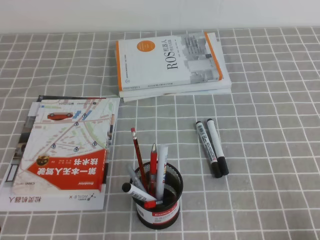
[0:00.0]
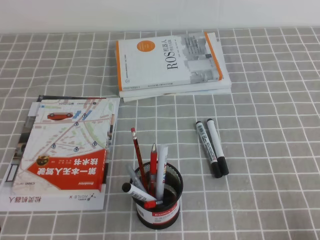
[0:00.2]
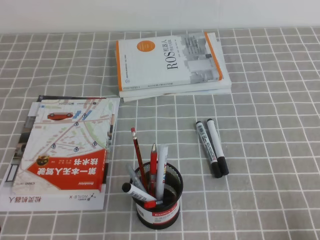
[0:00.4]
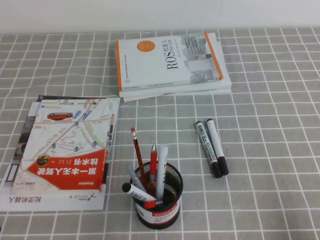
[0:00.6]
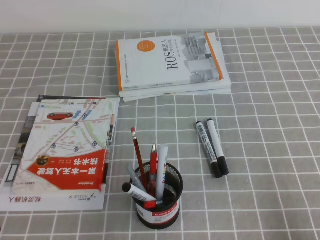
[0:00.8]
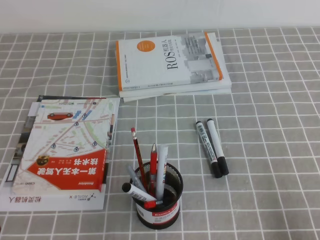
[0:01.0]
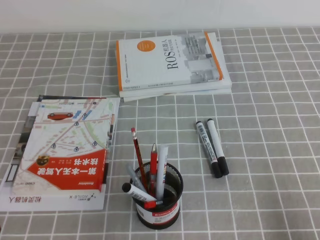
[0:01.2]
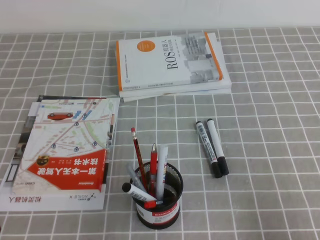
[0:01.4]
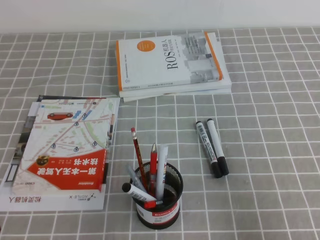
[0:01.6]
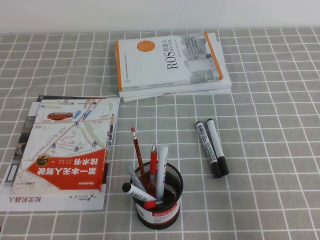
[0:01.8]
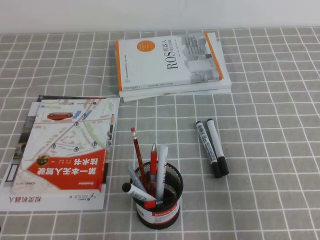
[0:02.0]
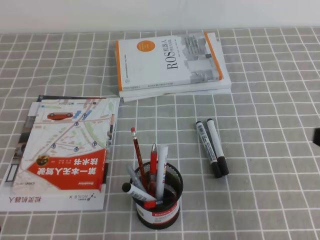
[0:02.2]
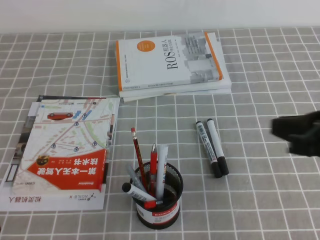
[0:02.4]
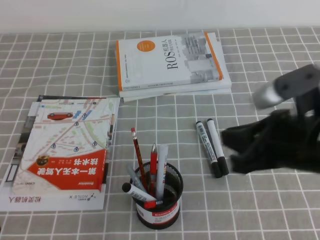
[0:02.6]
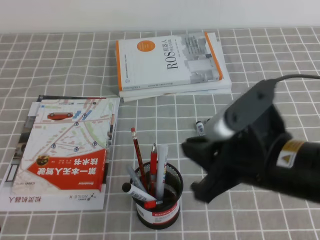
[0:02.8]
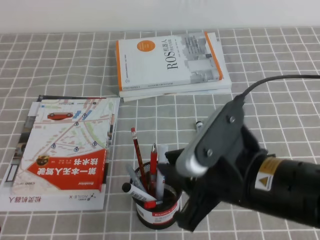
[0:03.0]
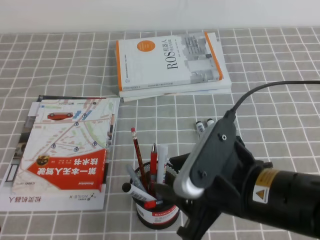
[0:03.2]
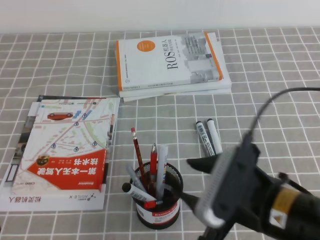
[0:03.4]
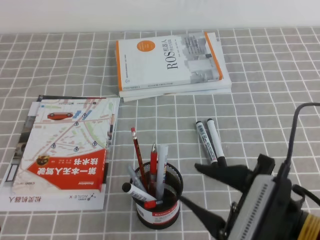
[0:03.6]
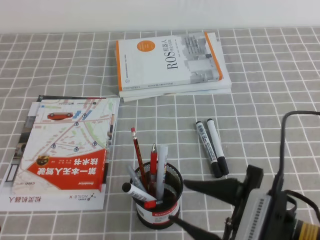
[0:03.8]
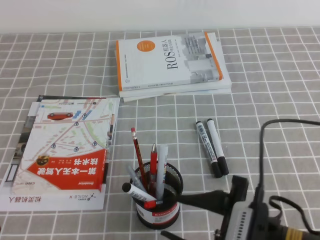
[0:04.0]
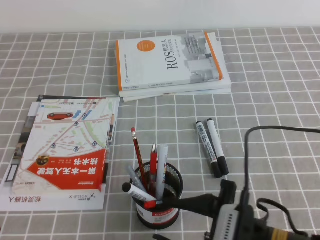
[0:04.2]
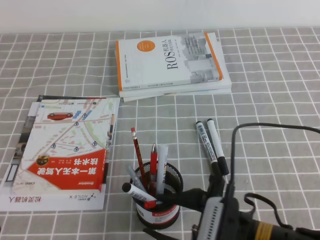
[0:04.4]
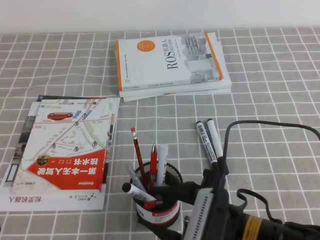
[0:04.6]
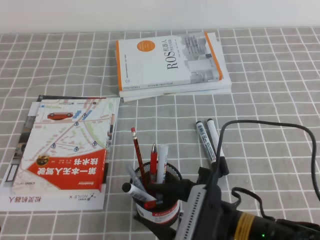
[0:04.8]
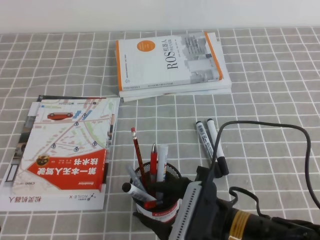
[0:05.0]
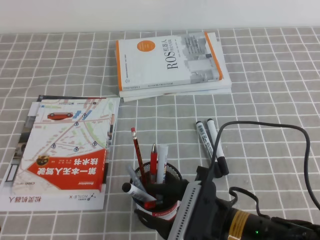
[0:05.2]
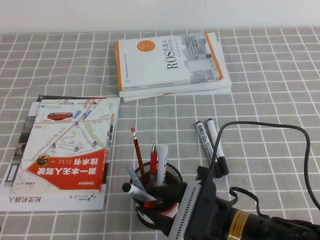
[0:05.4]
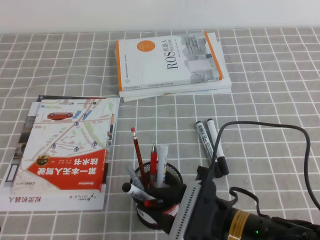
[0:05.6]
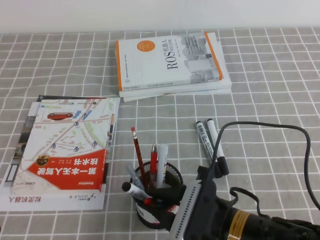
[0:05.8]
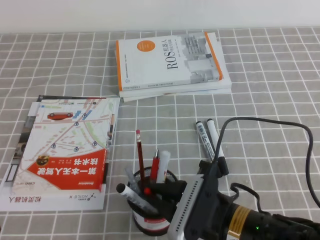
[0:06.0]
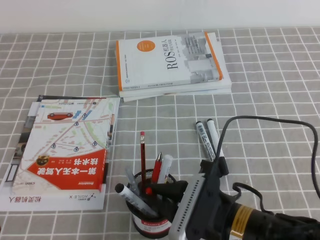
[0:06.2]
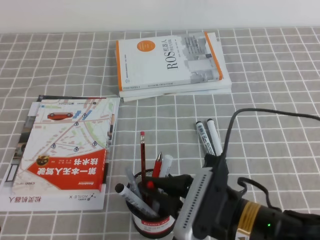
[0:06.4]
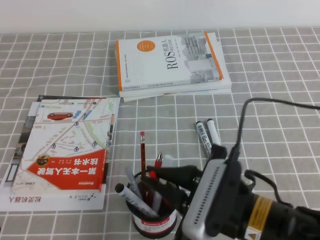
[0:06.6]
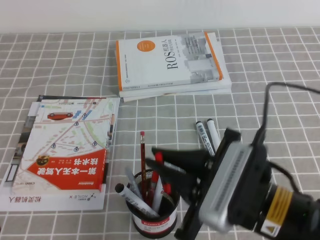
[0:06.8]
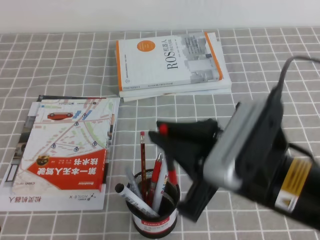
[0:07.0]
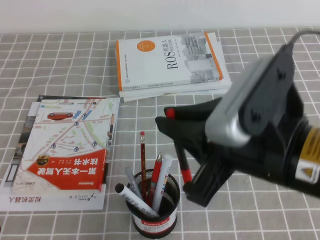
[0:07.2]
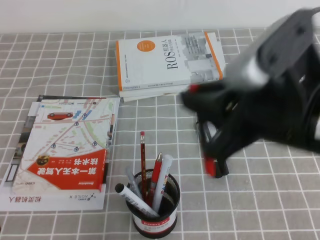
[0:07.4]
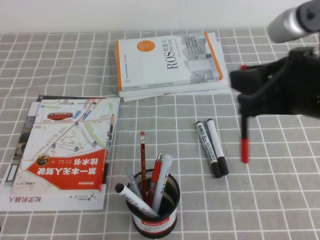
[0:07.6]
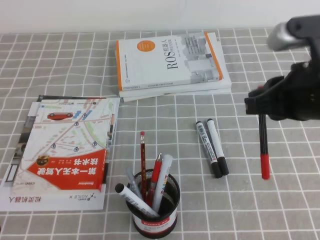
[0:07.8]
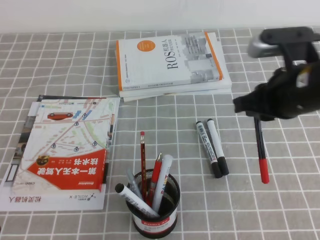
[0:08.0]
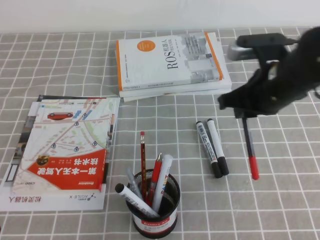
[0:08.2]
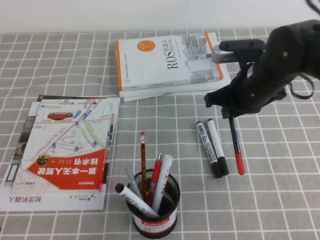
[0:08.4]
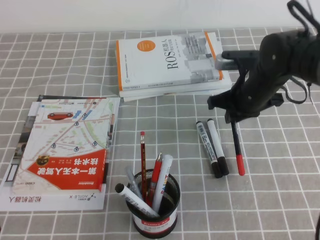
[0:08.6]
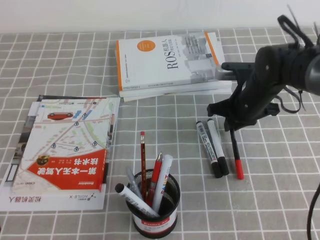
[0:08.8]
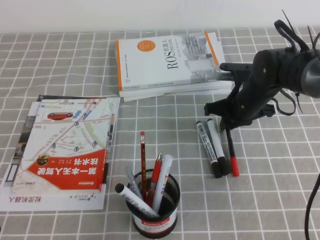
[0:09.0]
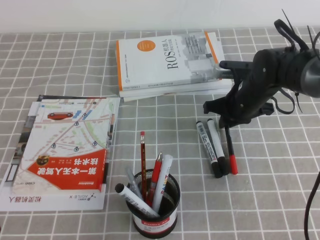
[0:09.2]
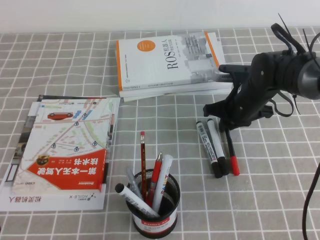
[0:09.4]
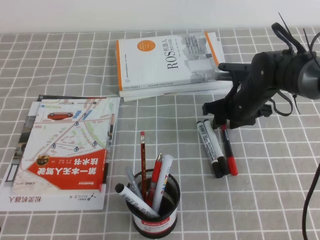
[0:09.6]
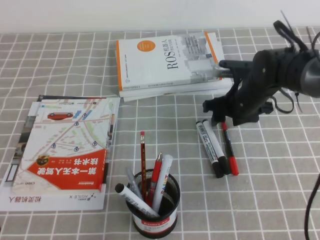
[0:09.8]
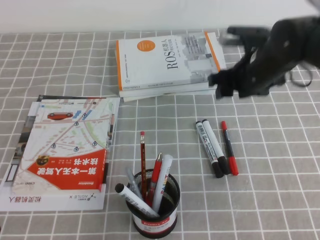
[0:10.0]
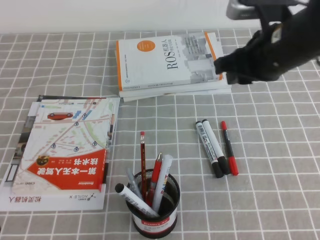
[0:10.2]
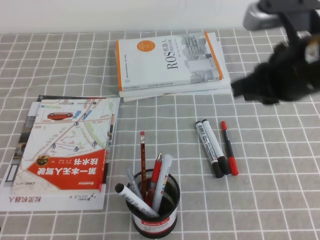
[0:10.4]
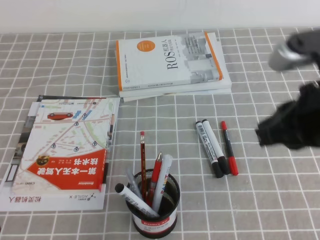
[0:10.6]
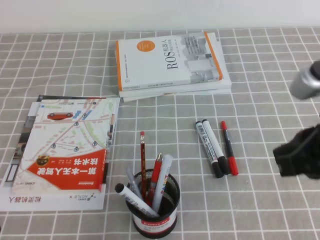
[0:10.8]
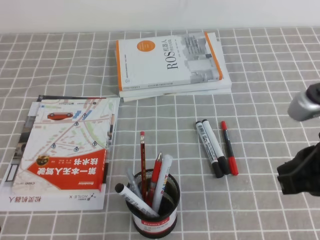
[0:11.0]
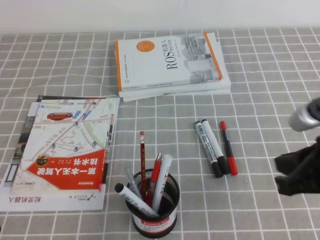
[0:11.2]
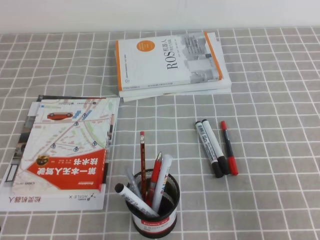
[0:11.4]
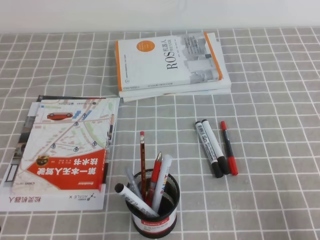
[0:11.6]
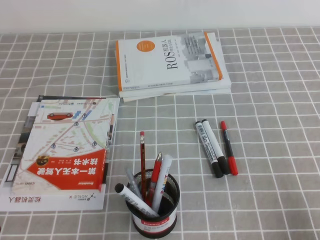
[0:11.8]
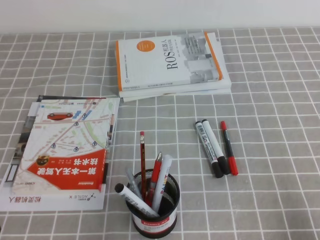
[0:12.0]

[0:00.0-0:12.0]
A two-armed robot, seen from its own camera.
0:00.0 to 0:01.6: The right gripper goes some 10 cm upward.
0:01.6 to 0:03.0: The right gripper goes some 20 cm to the left and forward.
0:03.0 to 0:04.4: The right gripper heads downward, covering about 10 cm, and opens its fingers.
0:04.4 to 0:06.0: The right gripper closes up.
0:06.0 to 0:07.6: The right gripper travels upward and to the right by approximately 20 cm.
0:07.6 to 0:09.0: The right gripper heads forward and downward, covering some 30 cm.
0:09.0 to 0:10.4: The right gripper goes some 20 cm upward and backward, and opens and closes again.
0:10.4 to 0:12.0: The right gripper moves backward, downward and to the right, roughly 30 cm.

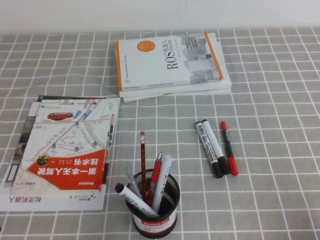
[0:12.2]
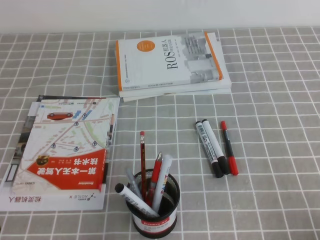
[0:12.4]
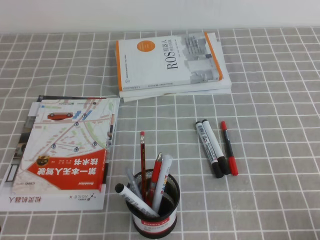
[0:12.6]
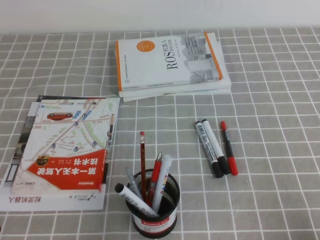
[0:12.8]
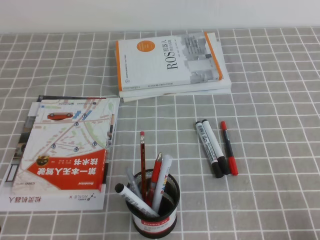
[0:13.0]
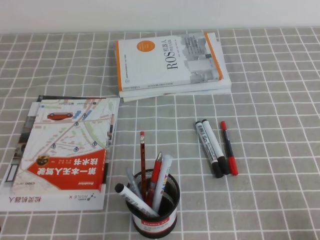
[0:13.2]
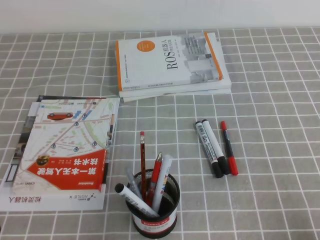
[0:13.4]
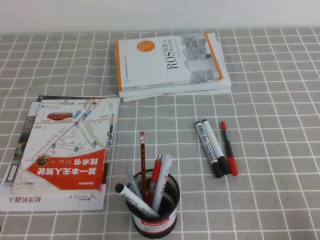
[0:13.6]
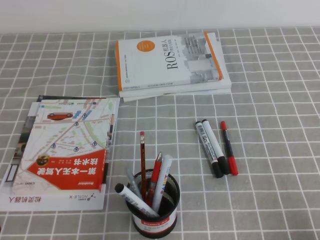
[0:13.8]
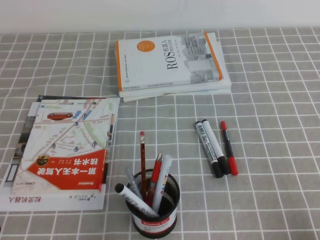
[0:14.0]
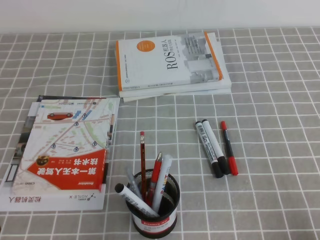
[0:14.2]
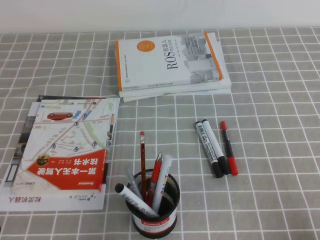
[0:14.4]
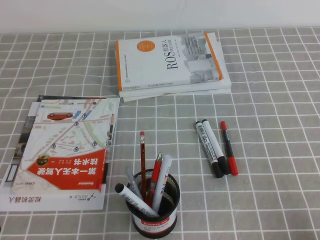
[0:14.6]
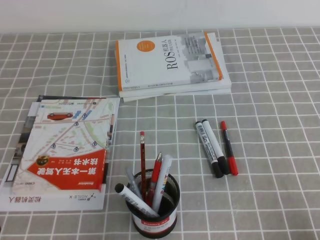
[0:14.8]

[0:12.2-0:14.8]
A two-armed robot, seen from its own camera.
0:13.4 to 0:14.8: Both grippers stay about where they are.

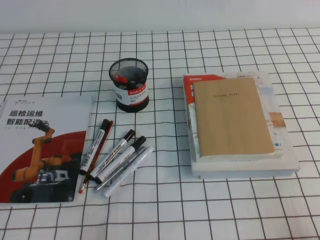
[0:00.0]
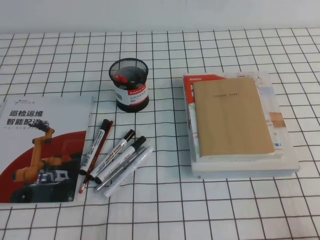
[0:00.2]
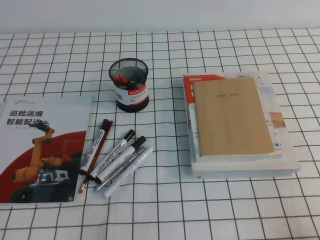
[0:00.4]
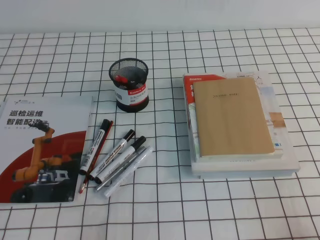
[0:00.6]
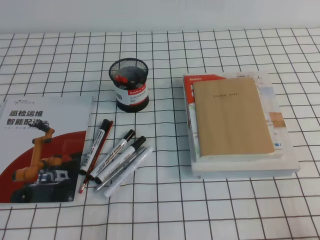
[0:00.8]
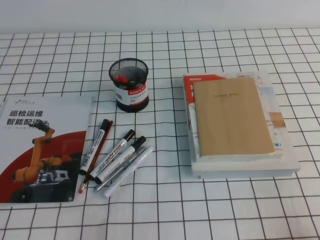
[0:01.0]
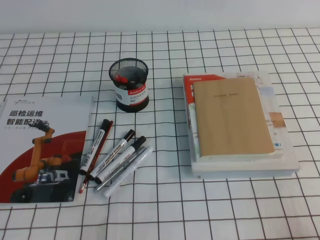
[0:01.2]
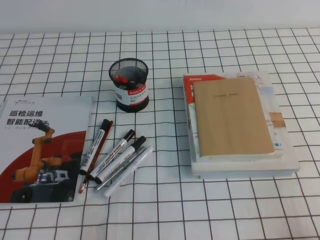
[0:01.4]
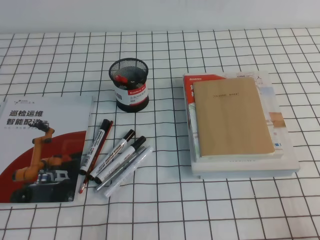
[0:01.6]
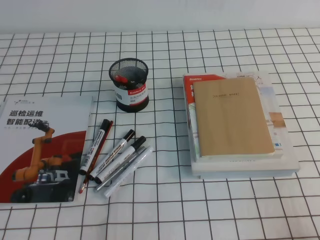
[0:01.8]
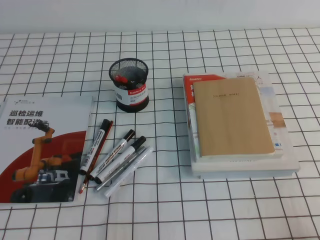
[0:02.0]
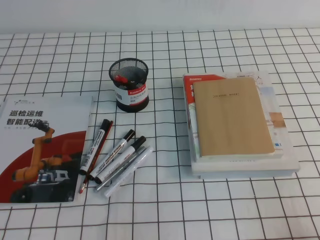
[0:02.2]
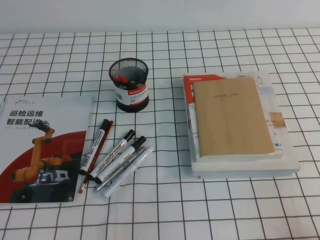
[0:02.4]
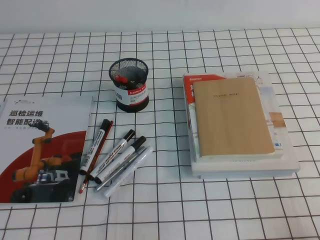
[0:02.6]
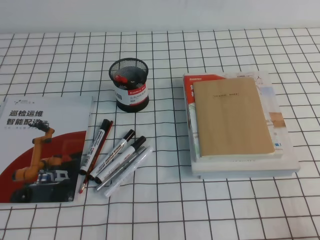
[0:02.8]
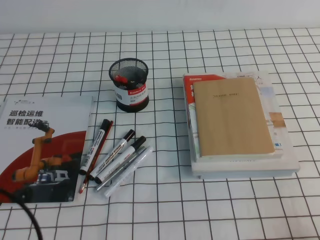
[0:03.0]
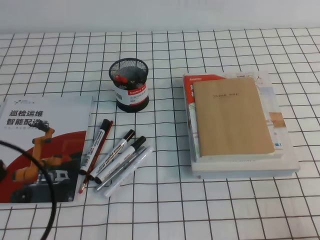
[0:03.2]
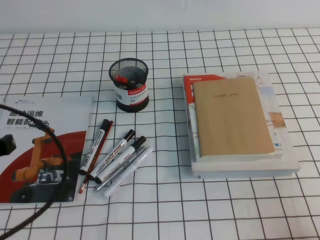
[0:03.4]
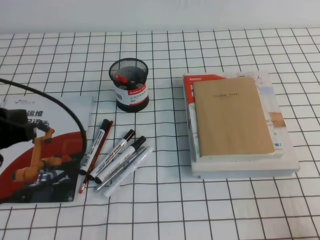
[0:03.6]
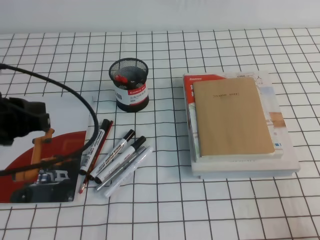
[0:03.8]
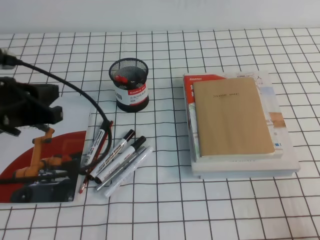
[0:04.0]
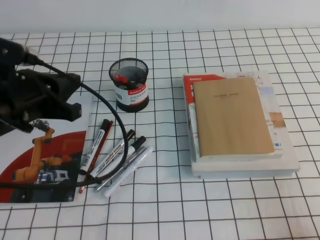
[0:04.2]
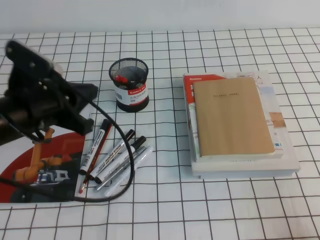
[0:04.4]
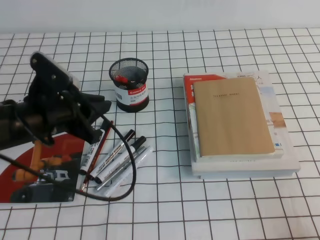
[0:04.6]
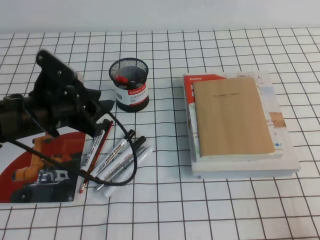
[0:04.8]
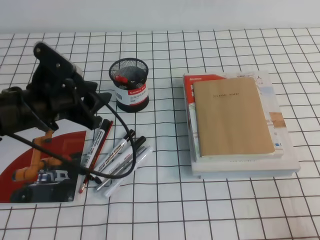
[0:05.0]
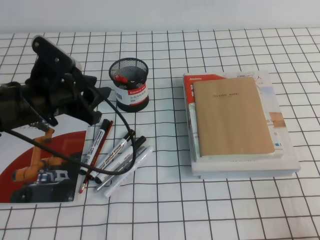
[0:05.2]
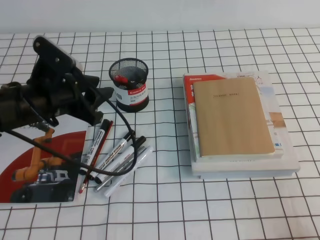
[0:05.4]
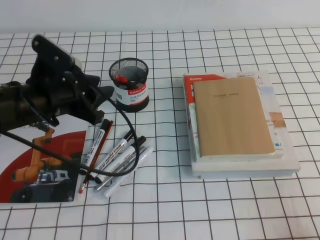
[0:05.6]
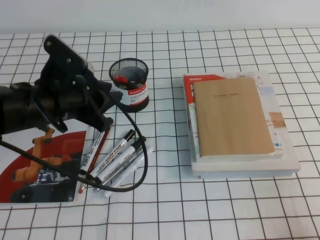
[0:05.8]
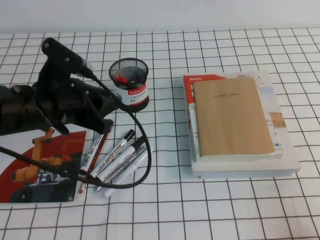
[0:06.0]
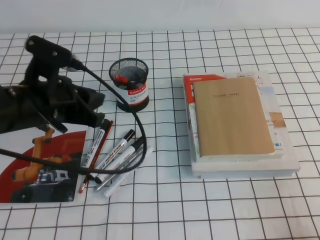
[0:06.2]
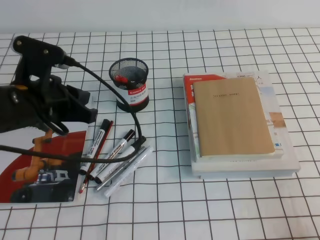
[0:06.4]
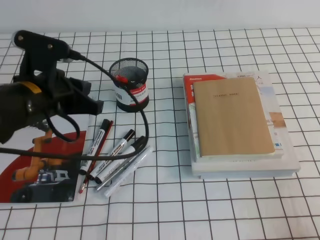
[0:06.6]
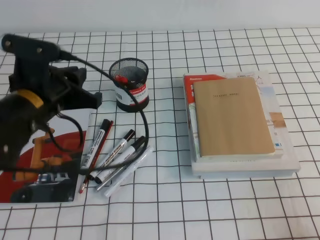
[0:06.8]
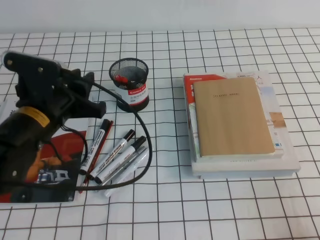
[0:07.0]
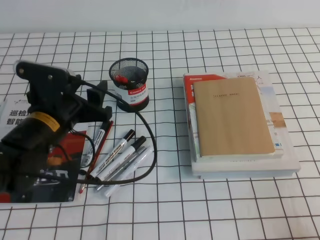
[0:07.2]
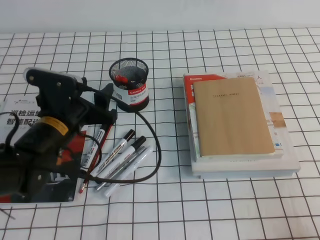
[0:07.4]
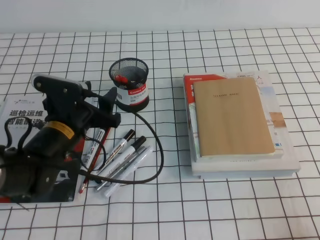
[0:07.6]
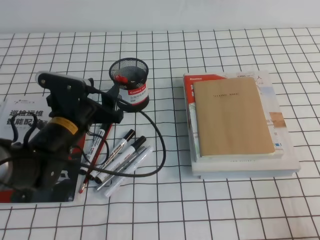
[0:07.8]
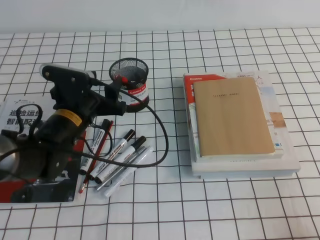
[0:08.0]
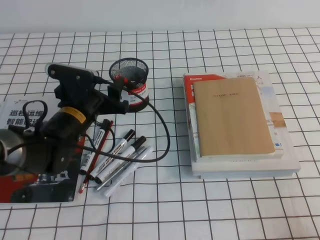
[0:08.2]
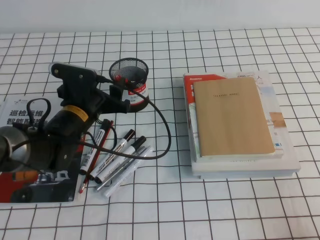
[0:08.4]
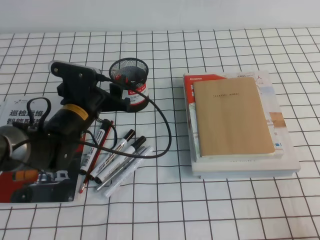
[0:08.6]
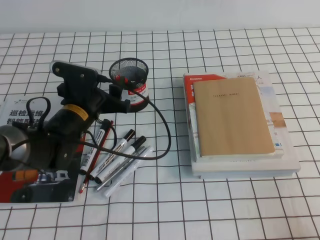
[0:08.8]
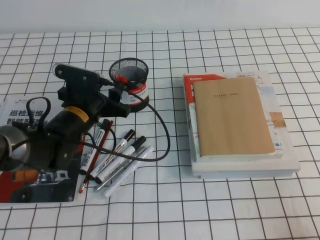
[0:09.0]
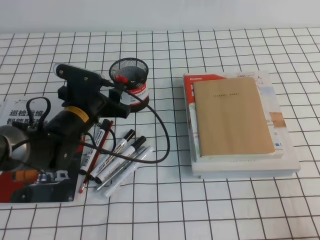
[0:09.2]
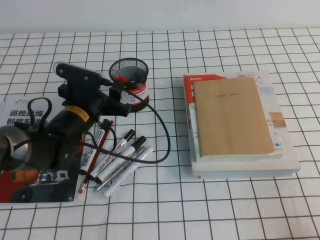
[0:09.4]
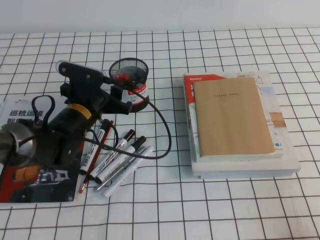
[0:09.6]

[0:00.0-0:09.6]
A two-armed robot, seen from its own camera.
0:01.6 to 0:03.2: The left gripper moves upward and forward, about 10 cm.
0:03.2 to 0:04.8: The left gripper travels forward and to the right by approximately 20 cm, and opens up.
0:04.8 to 0:06.4: The grippers make only small movements.
0:06.4 to 0:08.0: The left gripper moves downward, roughly 10 cm, and opens up.
0:08.0 to 0:09.6: There are only small adjustments of the grippers.
